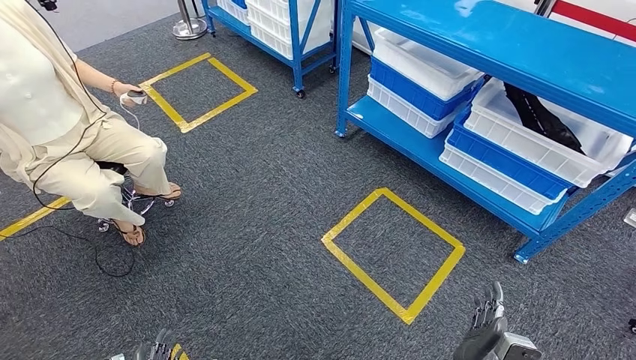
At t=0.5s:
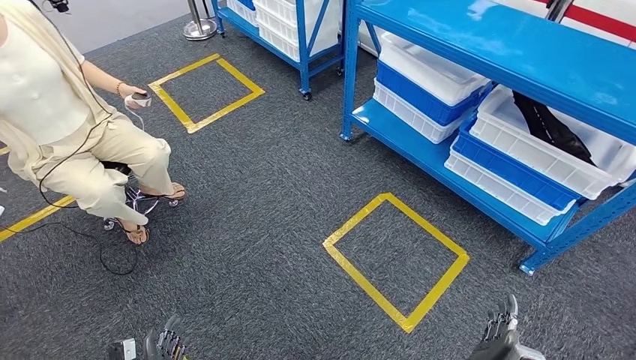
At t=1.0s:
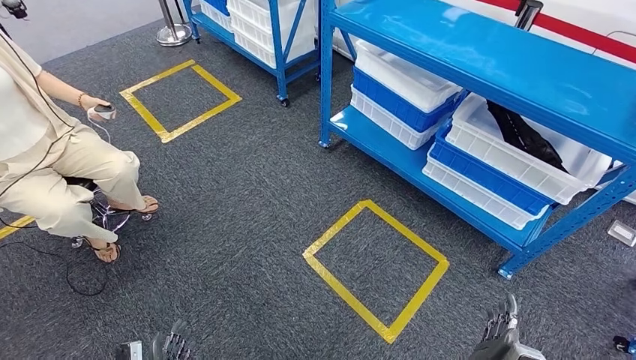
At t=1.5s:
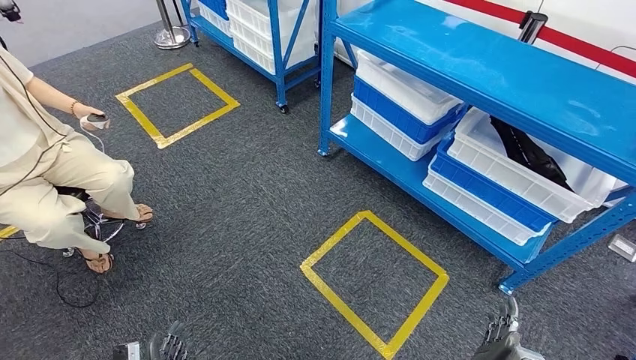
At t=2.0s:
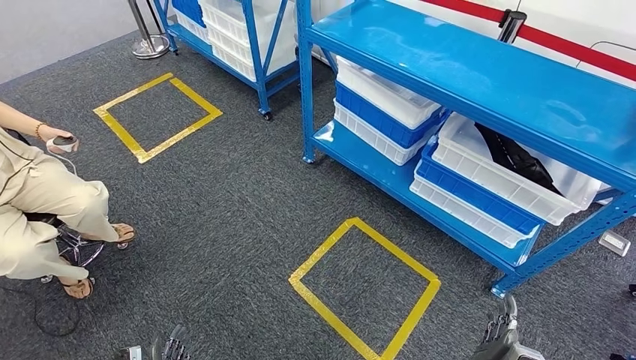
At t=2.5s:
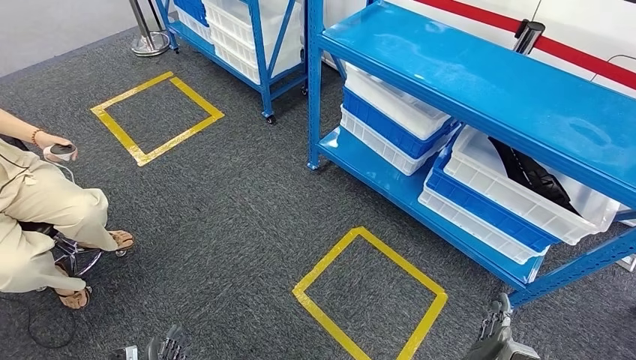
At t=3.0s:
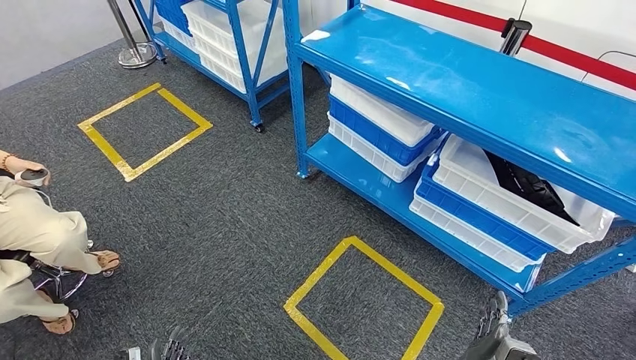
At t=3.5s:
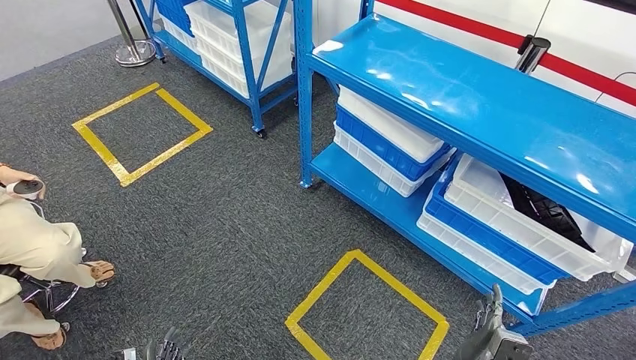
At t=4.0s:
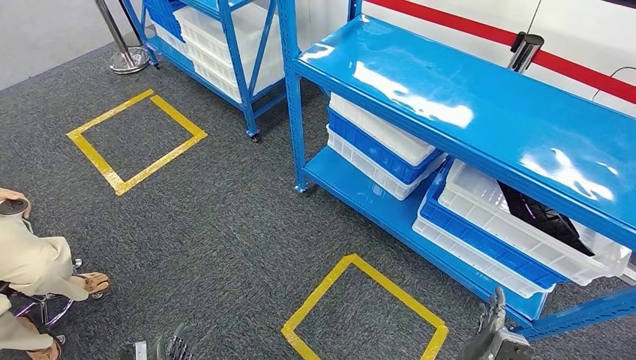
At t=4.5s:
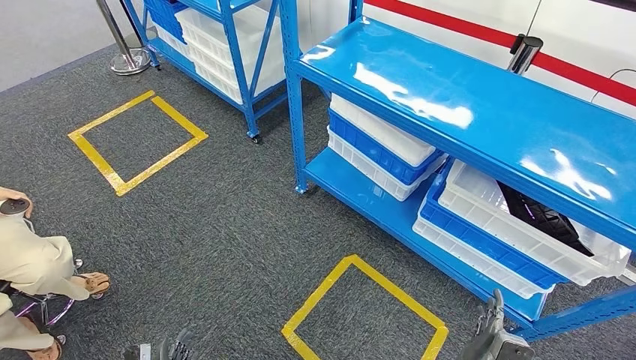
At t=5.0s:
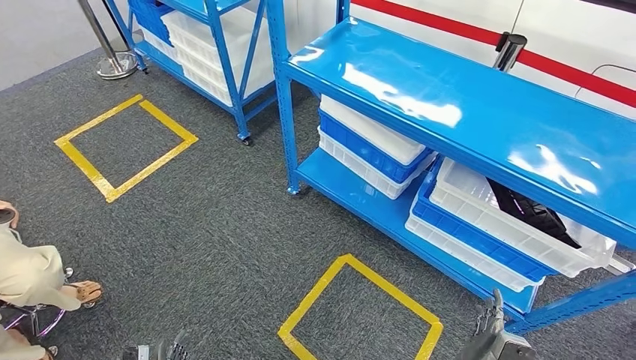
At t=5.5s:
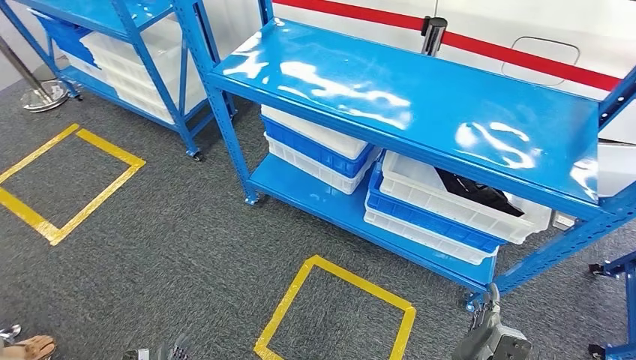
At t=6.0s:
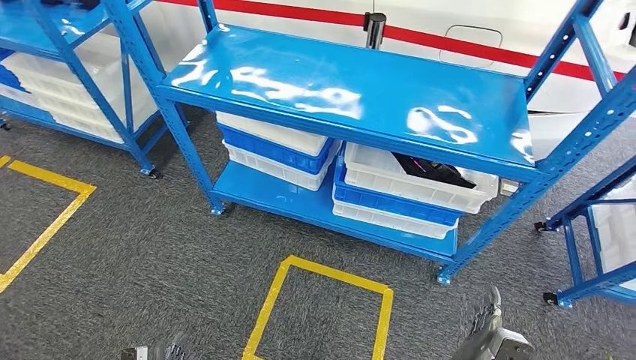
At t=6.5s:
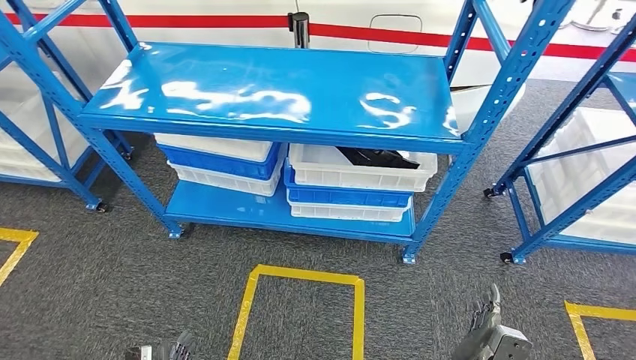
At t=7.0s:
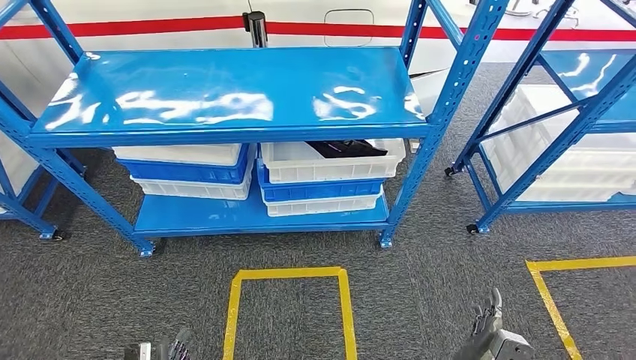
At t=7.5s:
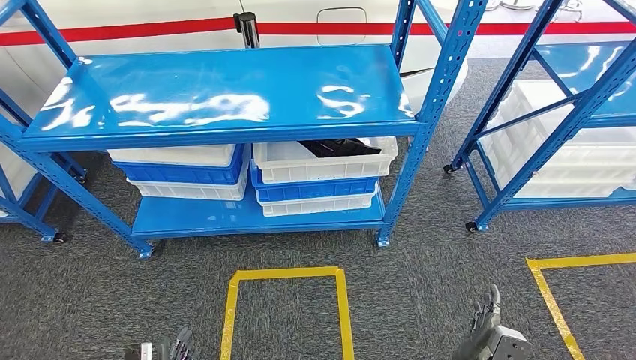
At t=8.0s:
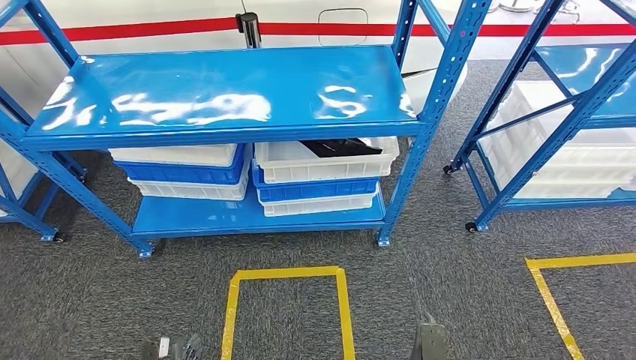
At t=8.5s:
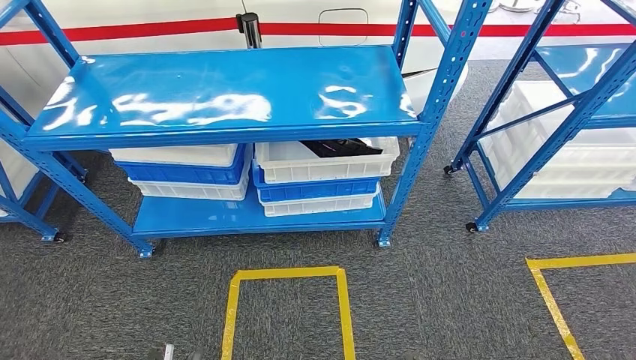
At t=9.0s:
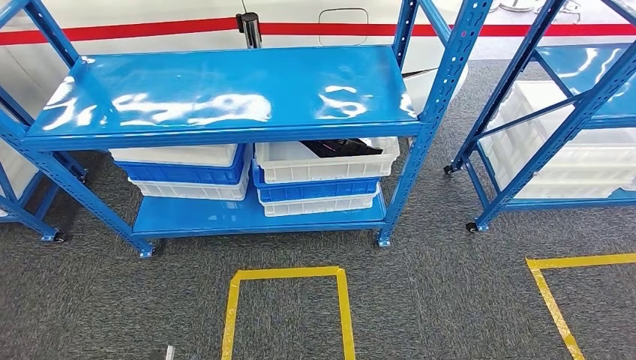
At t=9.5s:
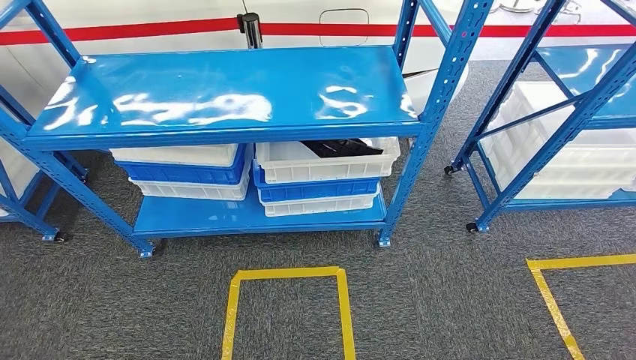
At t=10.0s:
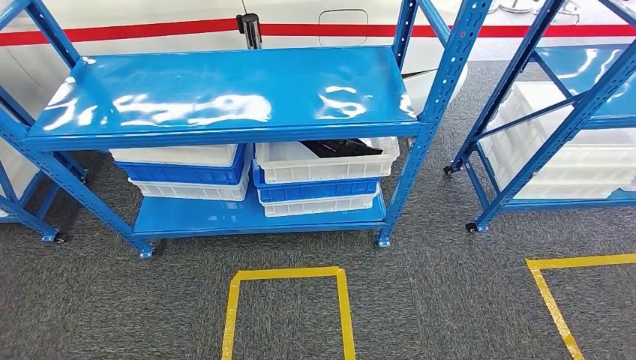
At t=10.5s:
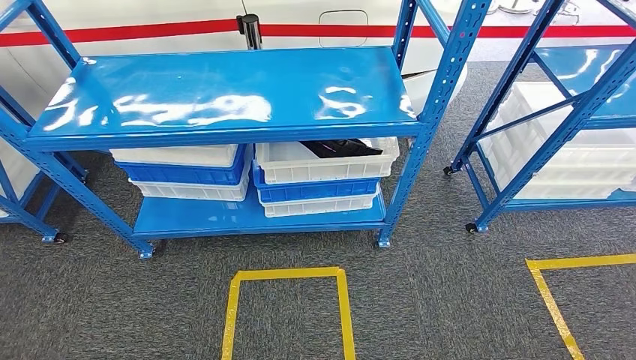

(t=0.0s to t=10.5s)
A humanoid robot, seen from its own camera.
Step, t=0.0s - t=10.5s: Return to the initial position at the shelf.
t=8.5s - t=10.5s: Both hands travel together backward, some 10 cm.

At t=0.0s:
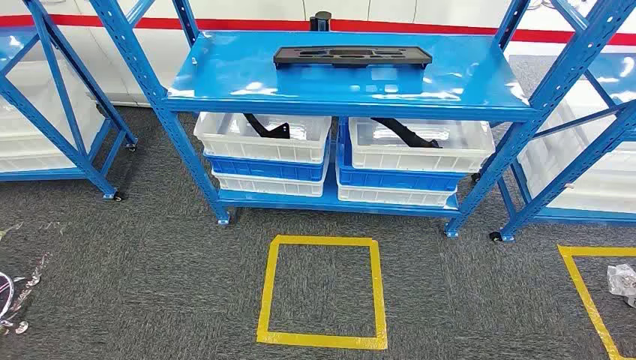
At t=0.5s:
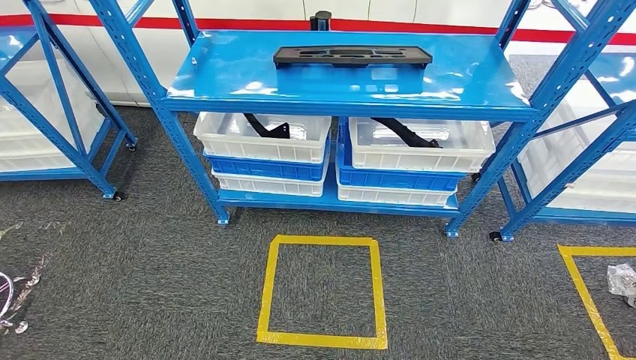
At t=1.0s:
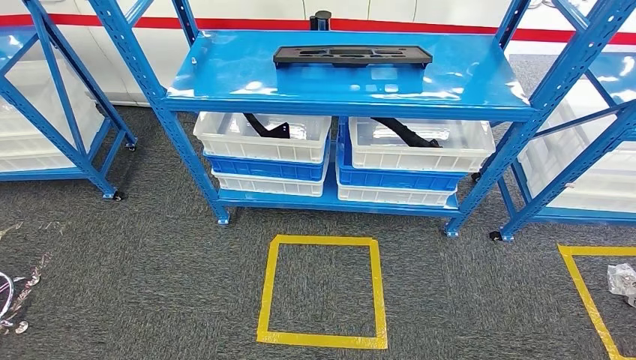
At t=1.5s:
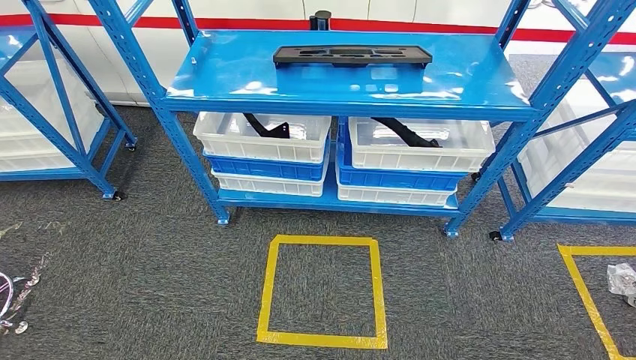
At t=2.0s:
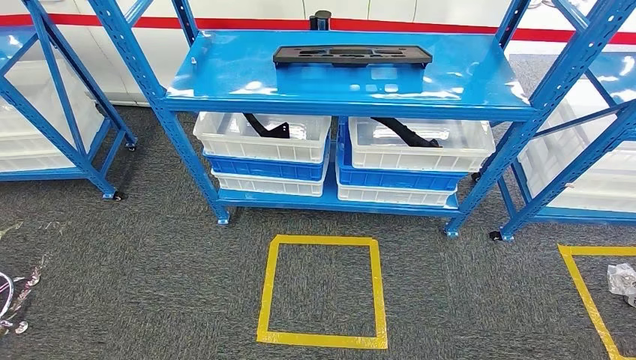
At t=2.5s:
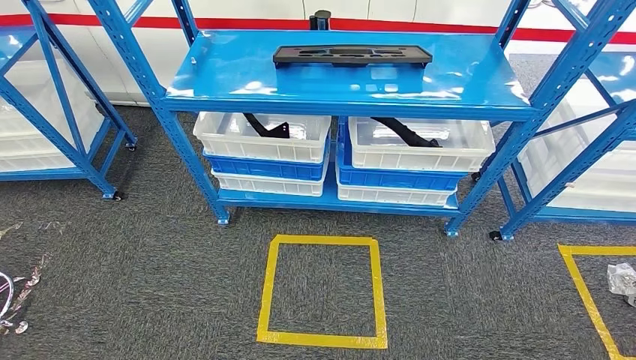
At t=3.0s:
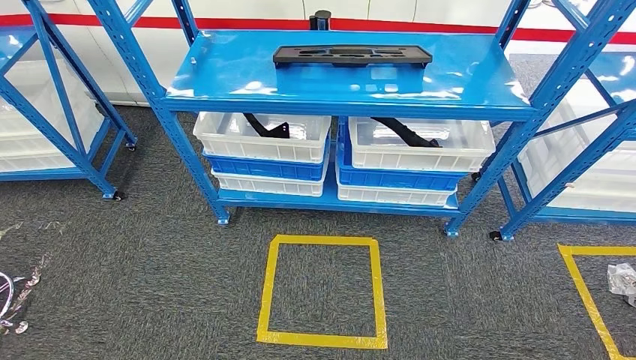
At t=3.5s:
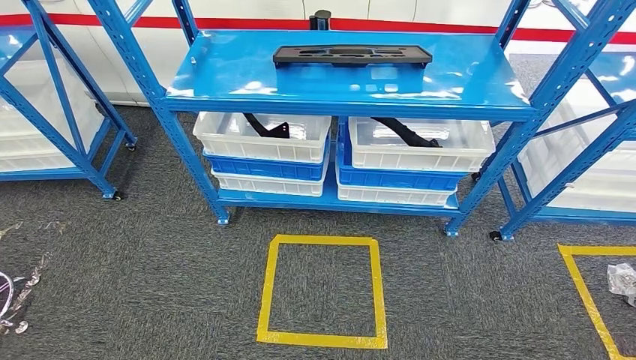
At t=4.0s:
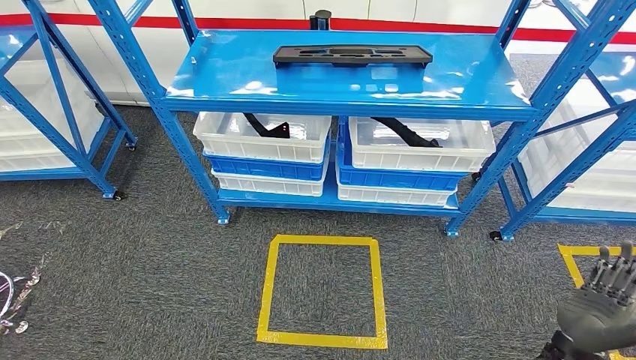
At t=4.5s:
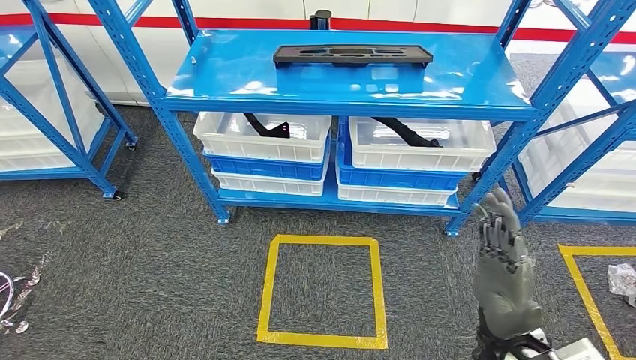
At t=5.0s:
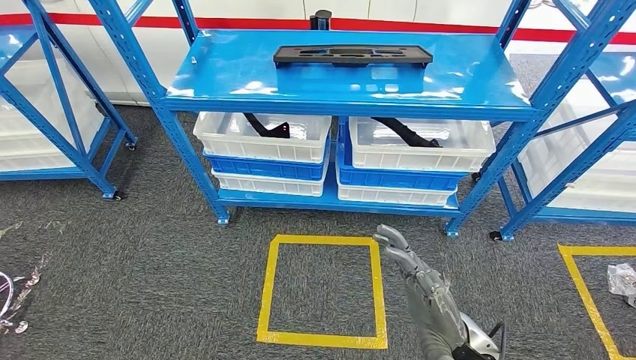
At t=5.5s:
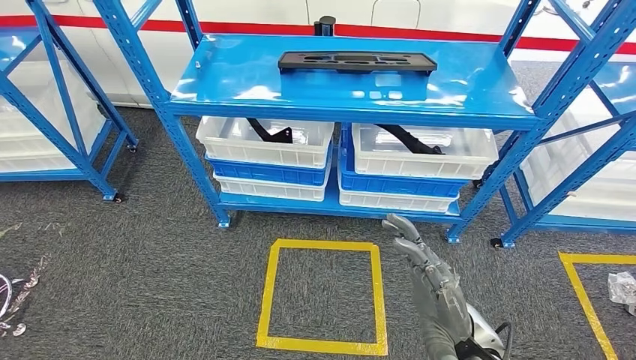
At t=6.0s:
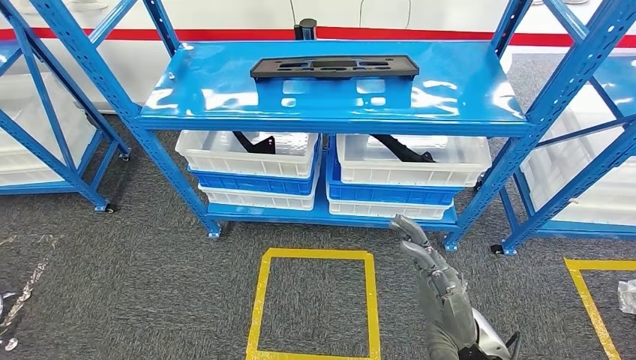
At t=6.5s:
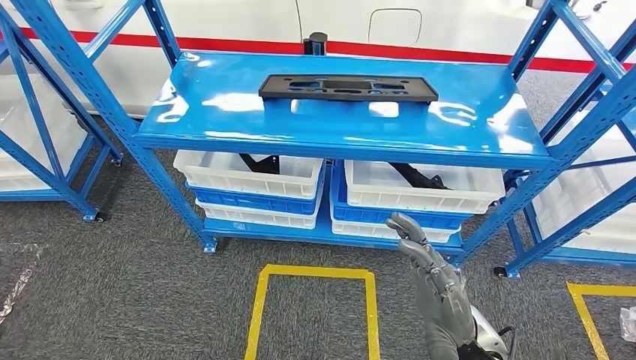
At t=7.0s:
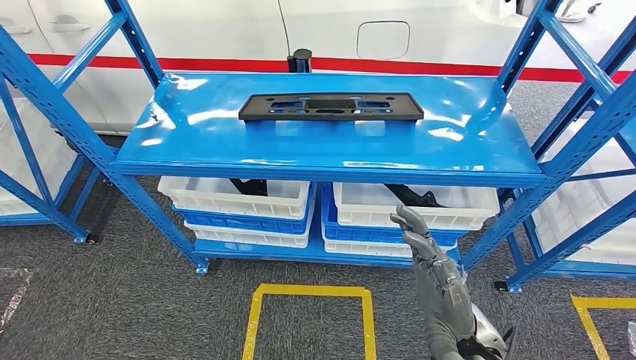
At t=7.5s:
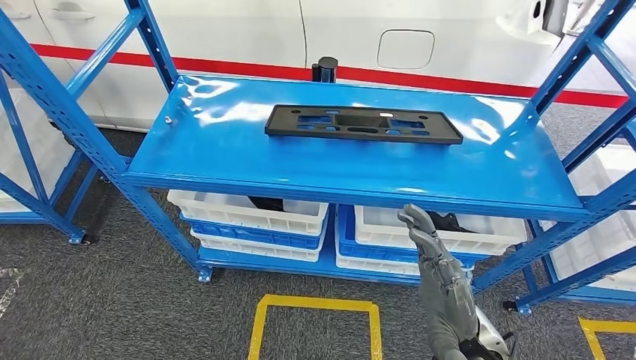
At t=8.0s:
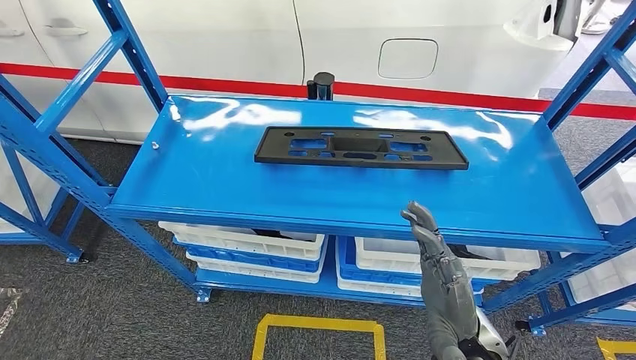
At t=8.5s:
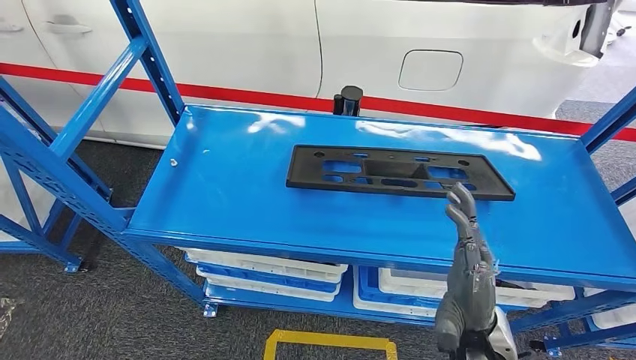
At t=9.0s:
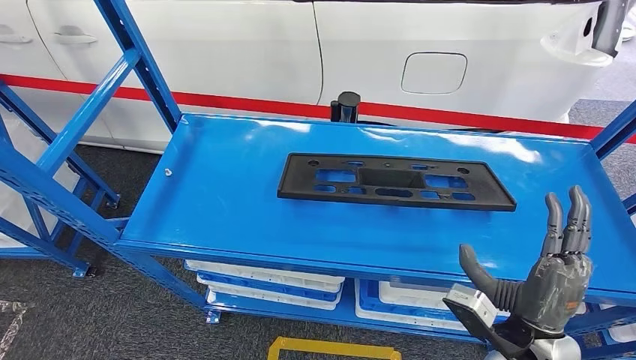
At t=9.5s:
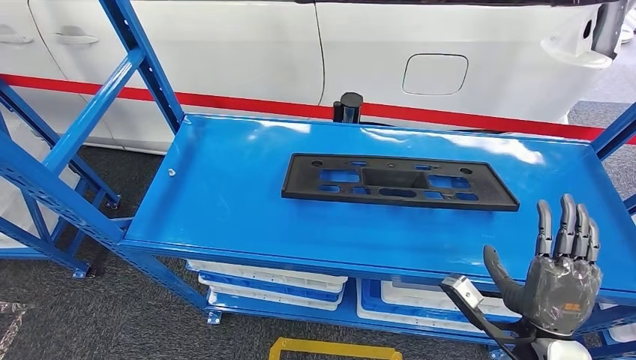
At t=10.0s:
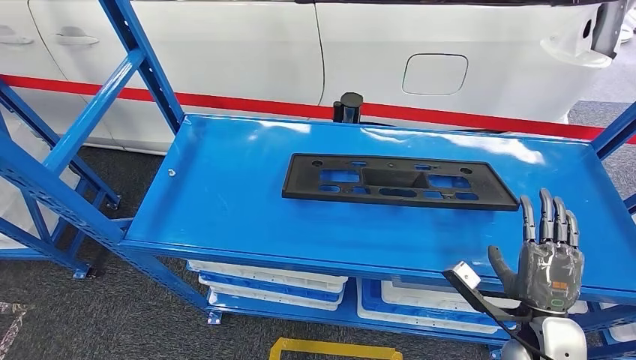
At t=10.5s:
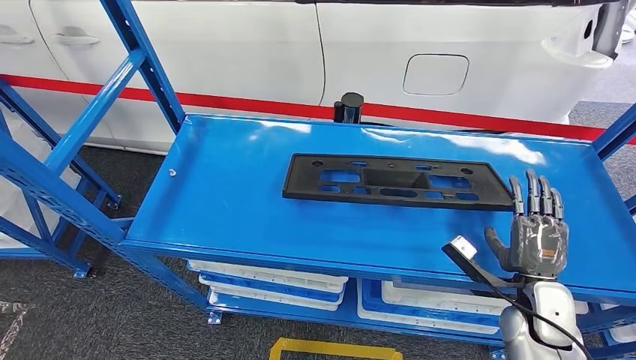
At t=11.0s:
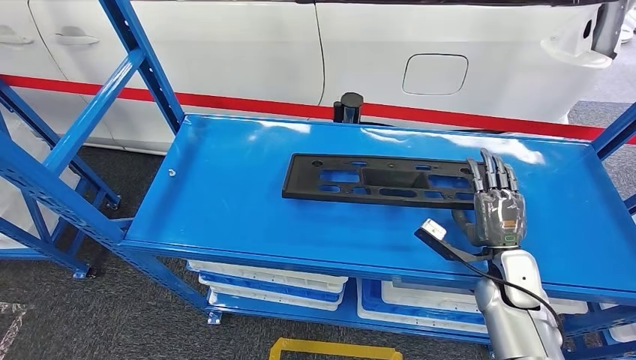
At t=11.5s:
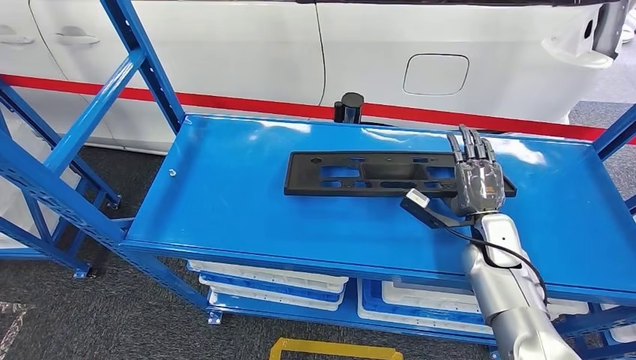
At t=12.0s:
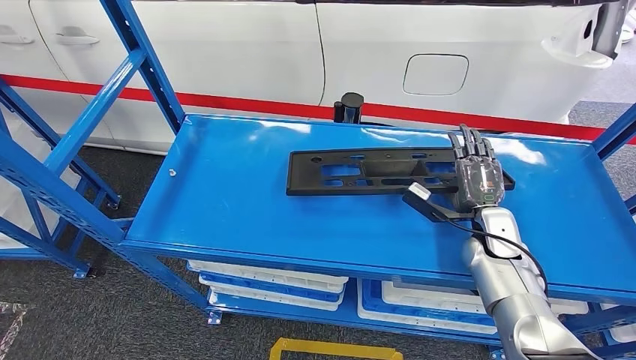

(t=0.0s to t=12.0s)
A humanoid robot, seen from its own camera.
t=2.0s - t=4.0s: The right hand goes approximately 25 cm upward, forward and to the right.
t=10.0s - t=12.0s: The right hand heads forward, covering some 20 cm.
